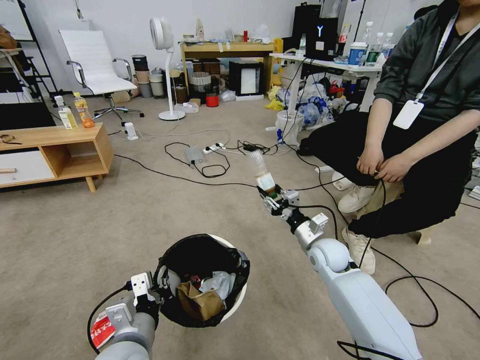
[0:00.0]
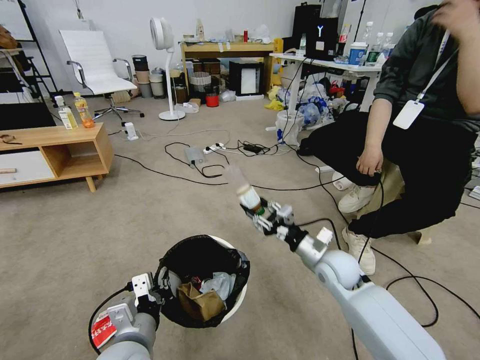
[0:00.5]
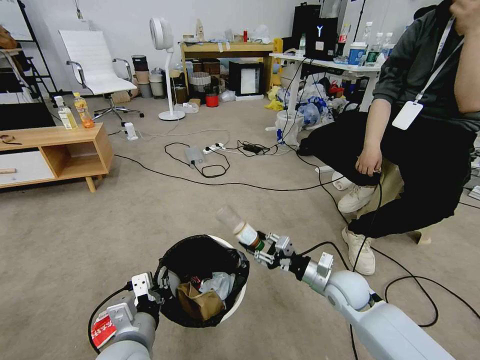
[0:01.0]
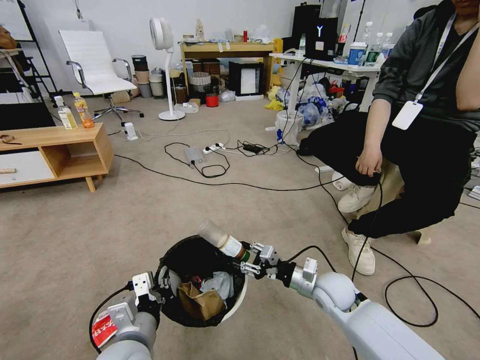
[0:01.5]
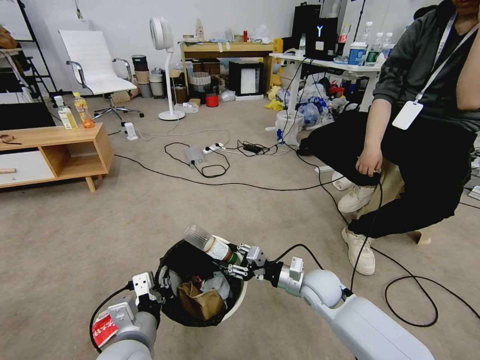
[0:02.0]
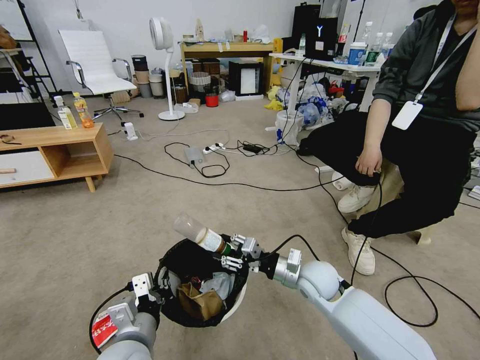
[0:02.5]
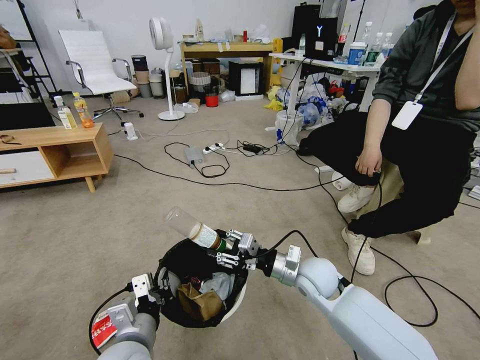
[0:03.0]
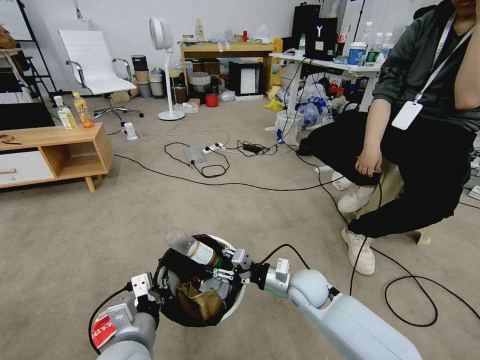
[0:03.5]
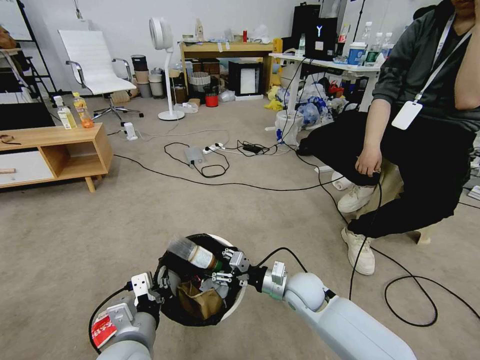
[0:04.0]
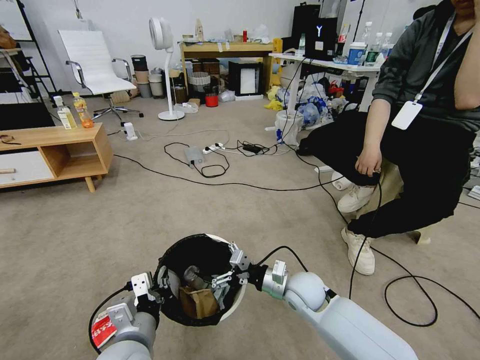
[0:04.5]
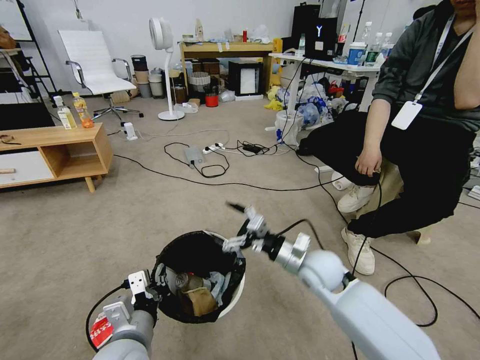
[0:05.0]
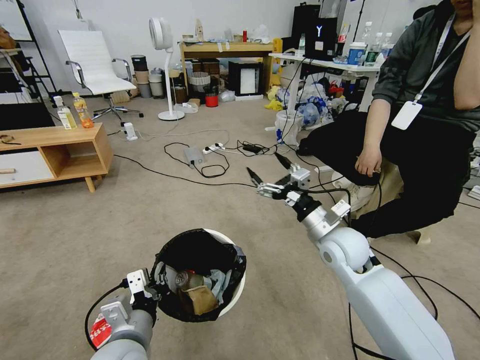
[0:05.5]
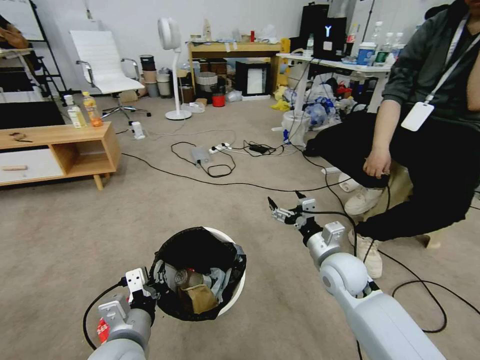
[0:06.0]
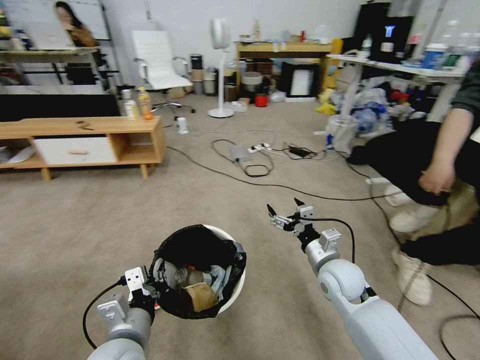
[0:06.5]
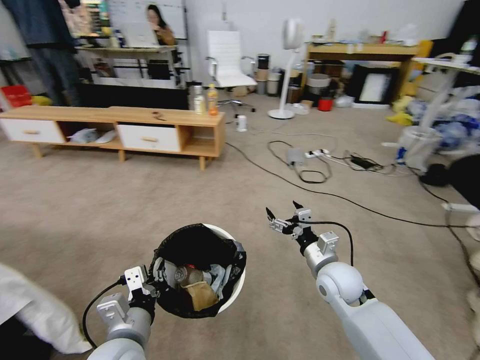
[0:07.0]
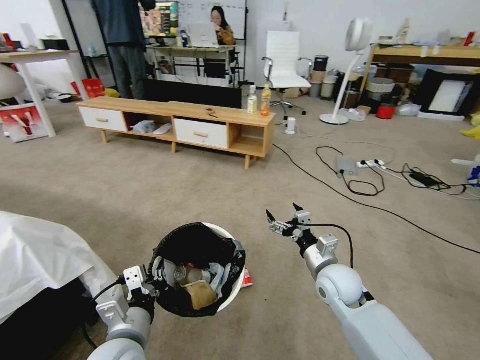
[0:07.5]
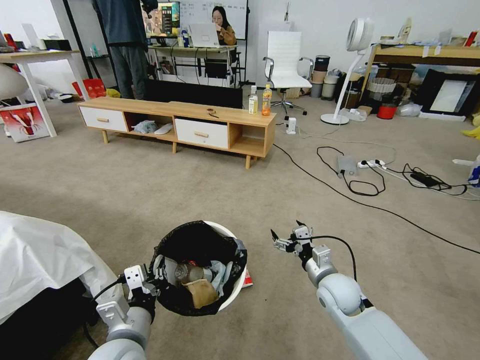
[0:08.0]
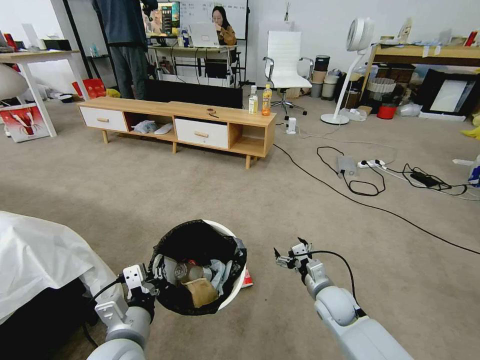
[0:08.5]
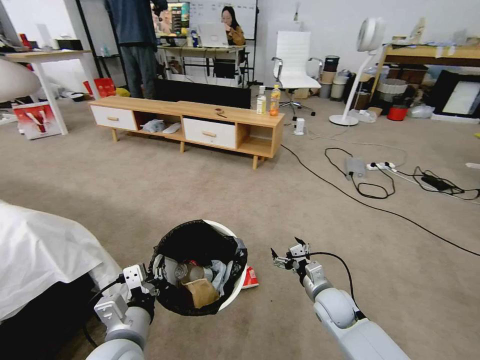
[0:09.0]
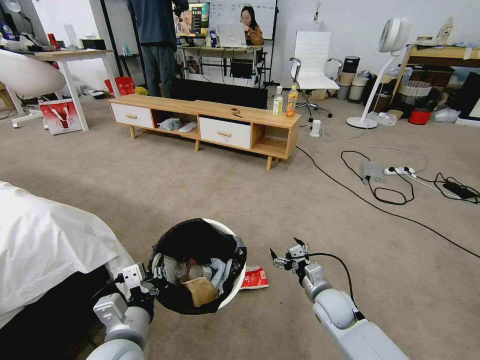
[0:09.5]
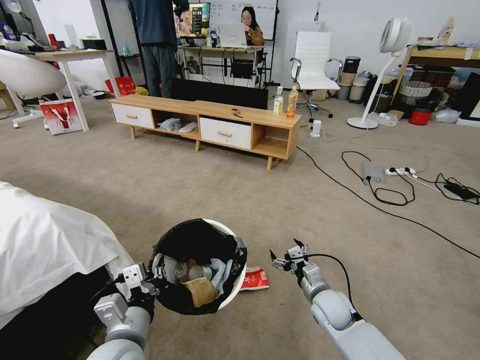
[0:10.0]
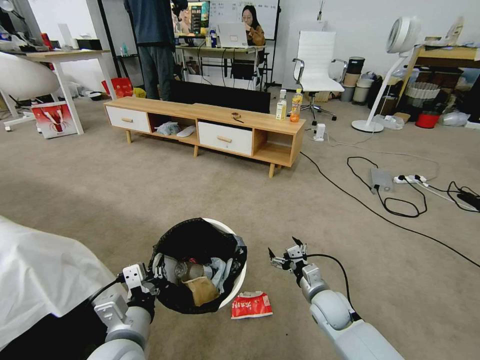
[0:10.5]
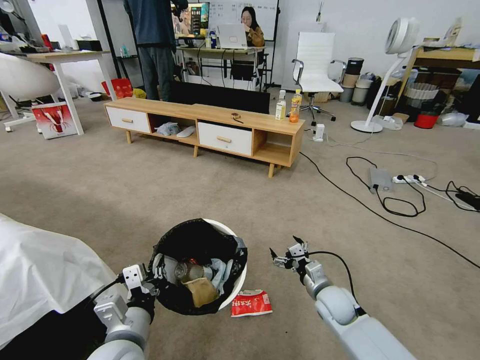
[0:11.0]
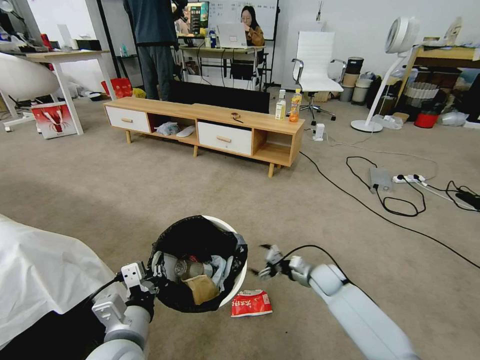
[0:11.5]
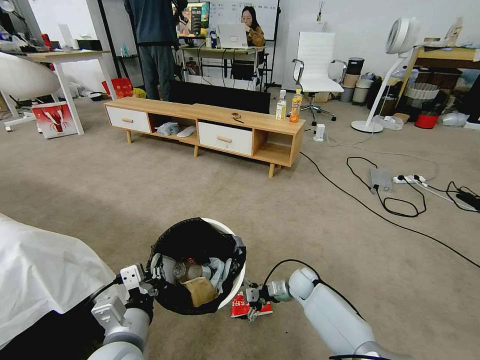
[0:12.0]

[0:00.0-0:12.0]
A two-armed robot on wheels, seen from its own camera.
Task of the whole recording: Pick up the trash bin and place the garbage on the floor into it.
0:00.0 to 0:02.0: The right gripper is displaced backward by approximately 5 cm.
0:02.0 to 0:04.0: The grippers make only small movements.
0:04.0 to 0:06.0: The right gripper moves upward and to the right, about 10 cm, and opens up.
0:06.0 to 0:08.0: The right gripper moves downward, about 5 cm.
0:08.0 to 0:10.0: The right gripper shifts about 5 cm downward.
0:10.0 to 0:12.0: The right gripper heads forward and downward, covering roughly 15 cm.

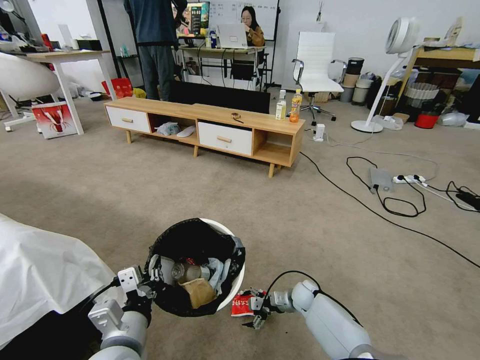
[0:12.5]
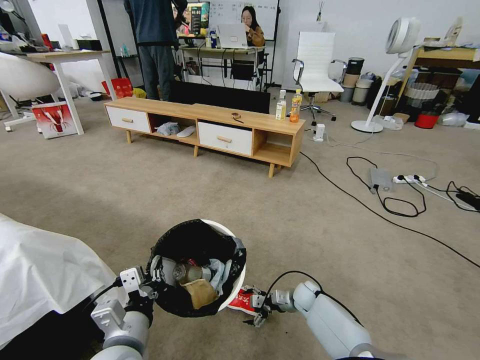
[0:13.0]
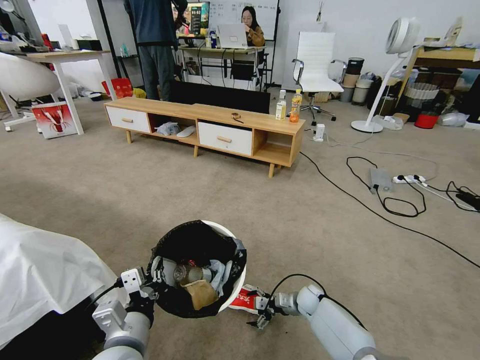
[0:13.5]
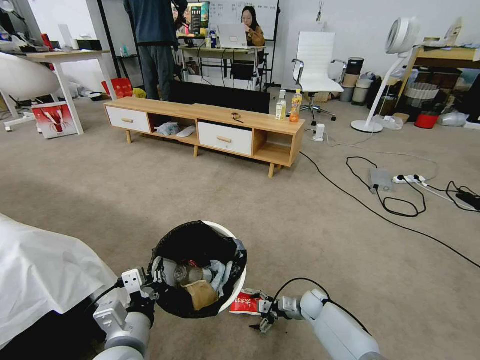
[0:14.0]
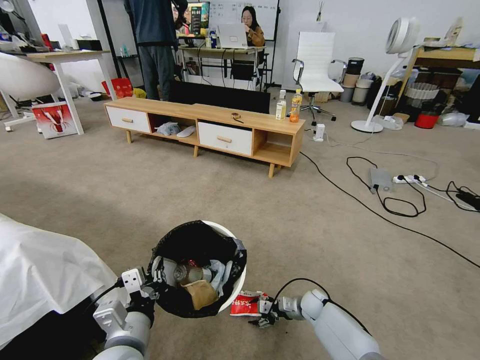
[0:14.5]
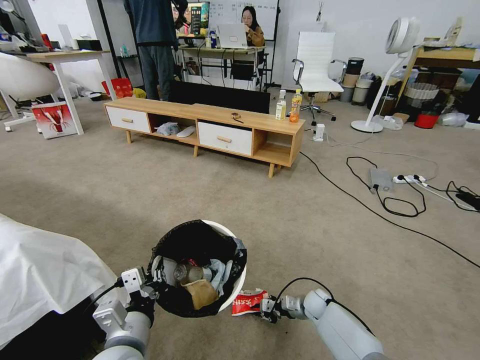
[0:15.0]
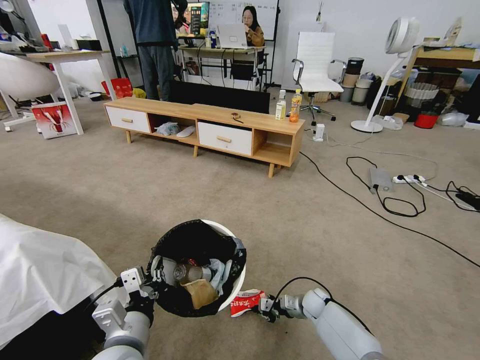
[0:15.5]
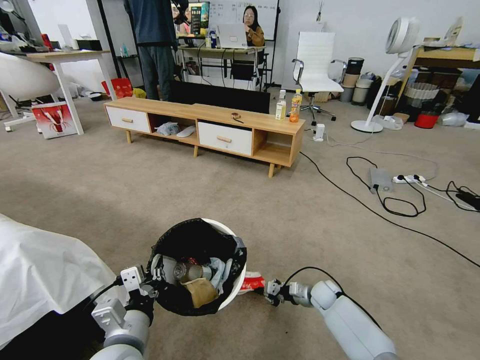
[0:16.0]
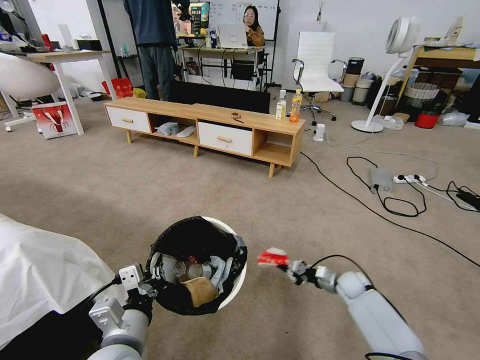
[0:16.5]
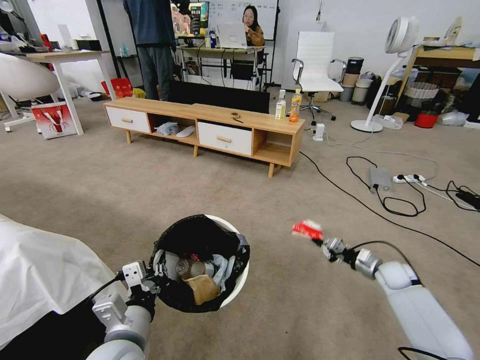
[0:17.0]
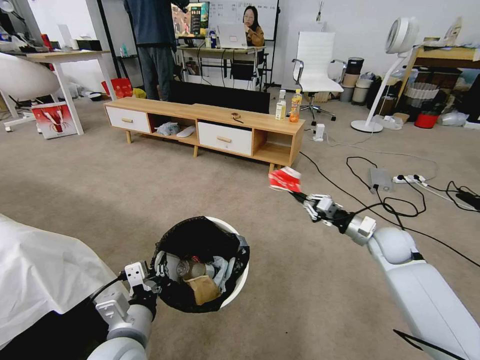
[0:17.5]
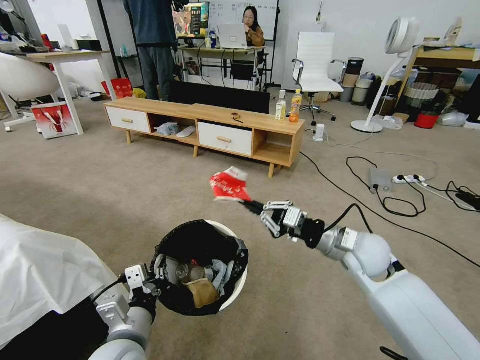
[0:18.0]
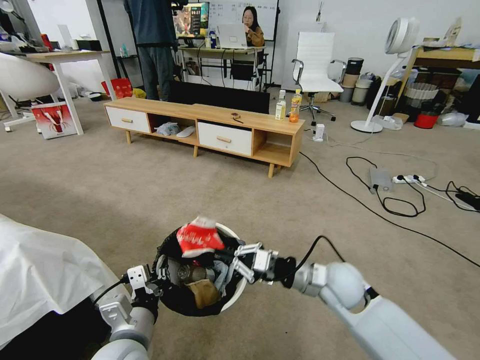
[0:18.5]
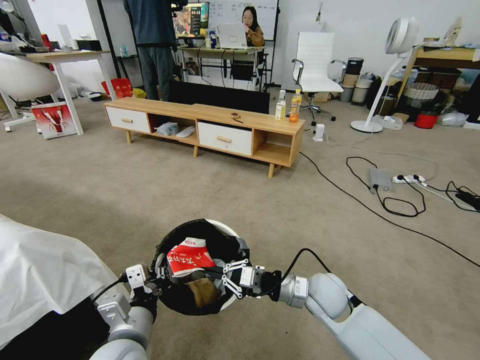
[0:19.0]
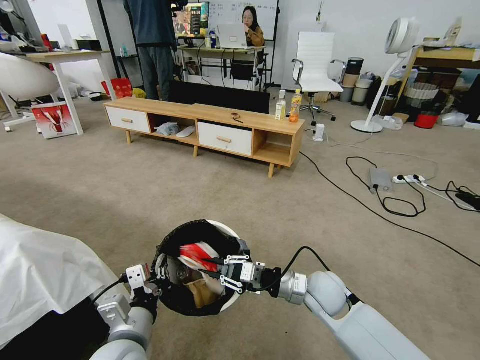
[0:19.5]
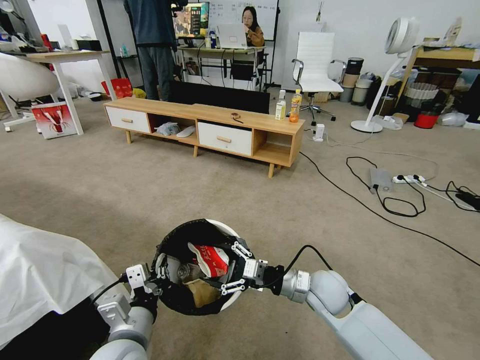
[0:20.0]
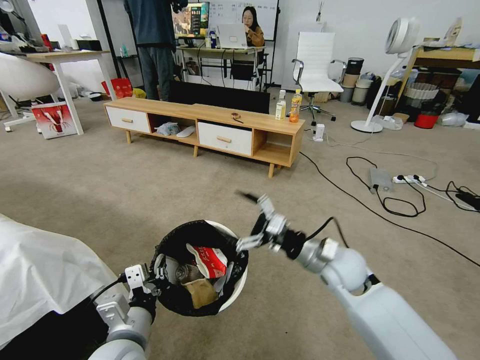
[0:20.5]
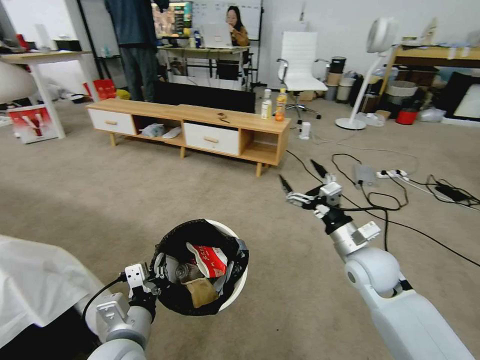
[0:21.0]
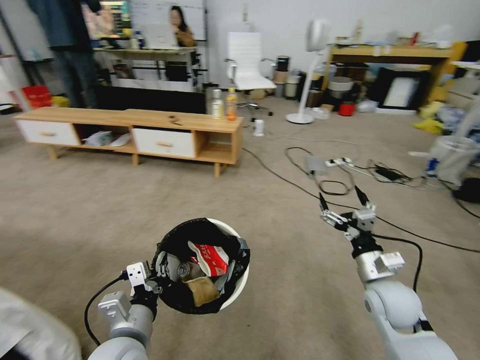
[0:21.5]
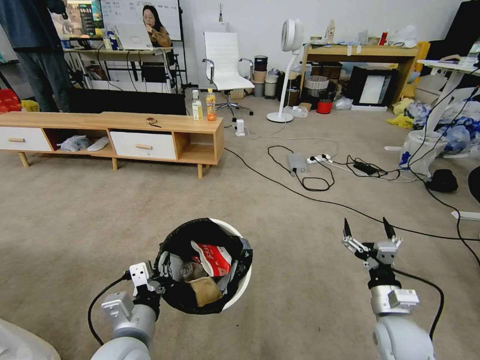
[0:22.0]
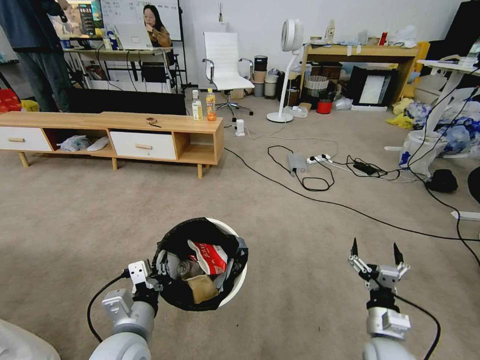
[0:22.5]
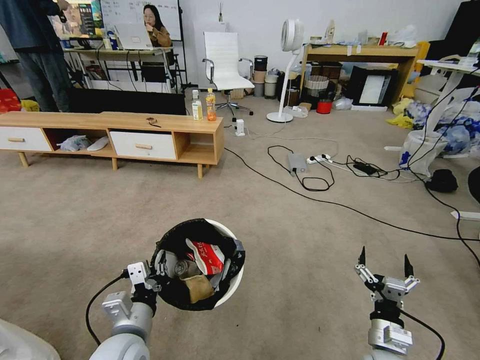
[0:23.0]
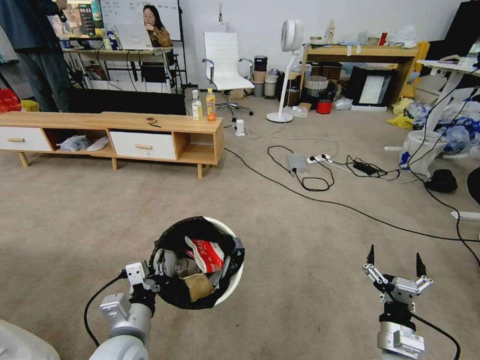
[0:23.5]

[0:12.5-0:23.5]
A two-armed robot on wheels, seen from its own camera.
Task of the whole recording: Pick up the trash bin and place the garbage on the floor into it.
0:12.5 to 0:14.5: The right gripper closes.
0:14.5 to 0:16.0: The right gripper closes.
0:16.0 to 0:18.0: The right gripper is displaced upward by some 30 cm.
0:18.0 to 0:20.0: The right gripper moves downward and to the left, about 10 cm, and opens its fingers.
0:20.0 to 0:21.5: The right gripper goes approximately 10 cm to the right.
0:21.5 to 0:23.5: The right gripper heads downward and backward, covering some 15 cm.
